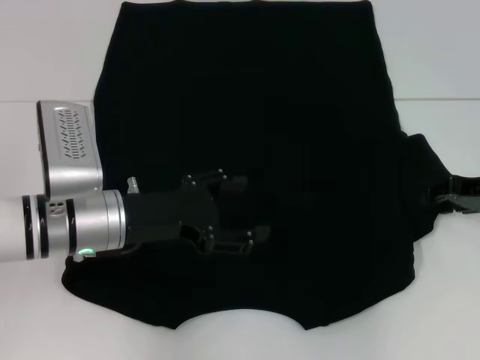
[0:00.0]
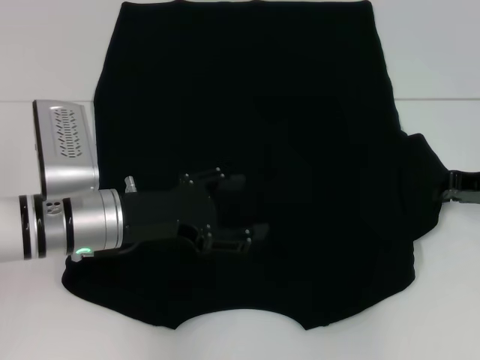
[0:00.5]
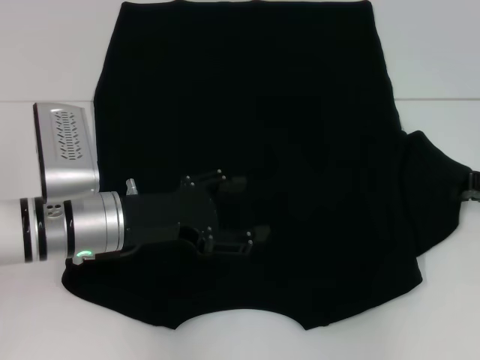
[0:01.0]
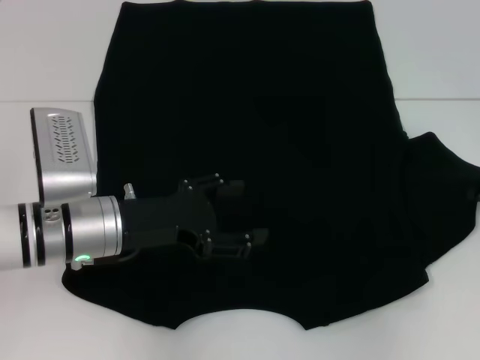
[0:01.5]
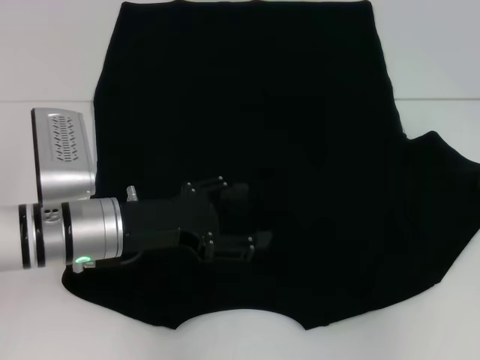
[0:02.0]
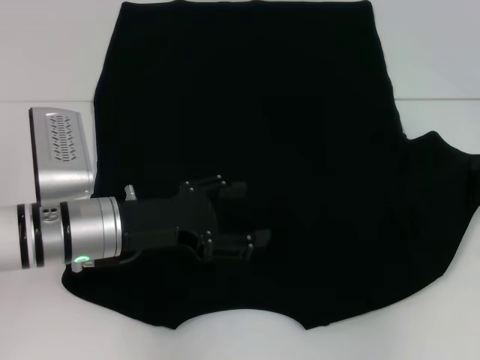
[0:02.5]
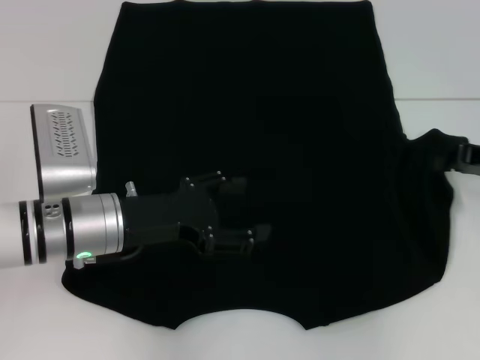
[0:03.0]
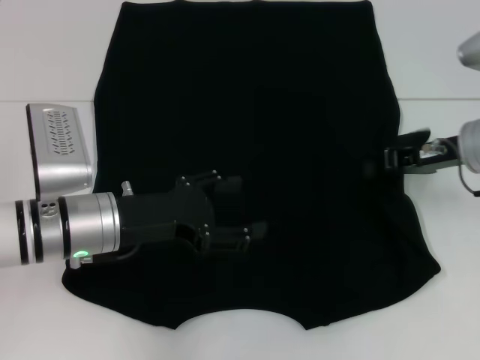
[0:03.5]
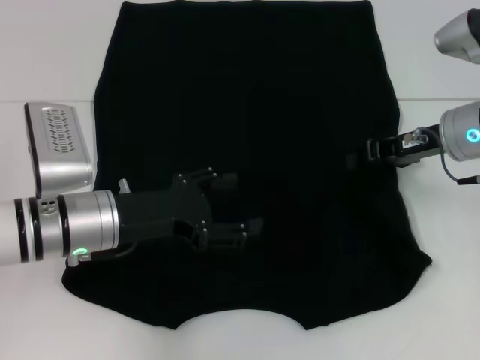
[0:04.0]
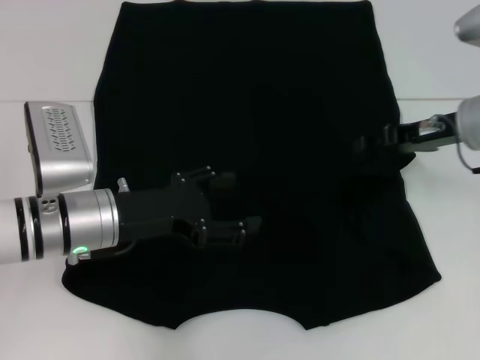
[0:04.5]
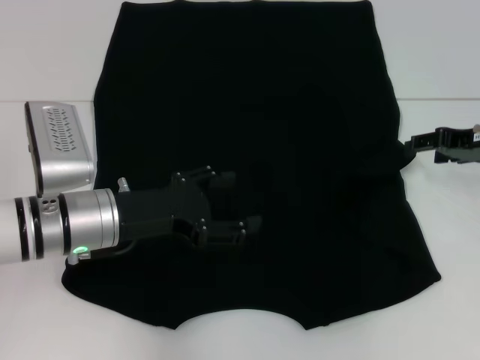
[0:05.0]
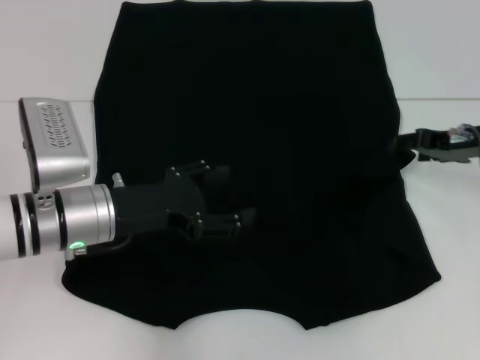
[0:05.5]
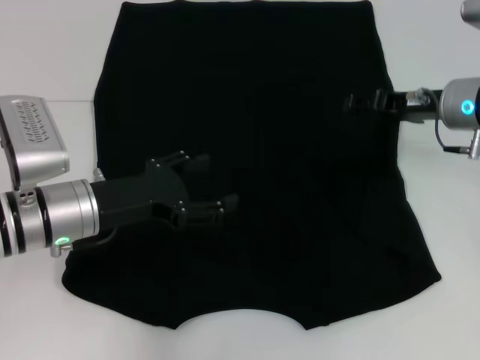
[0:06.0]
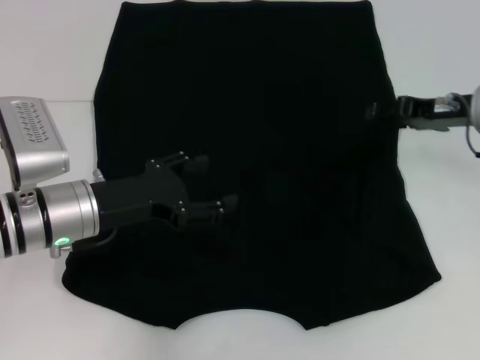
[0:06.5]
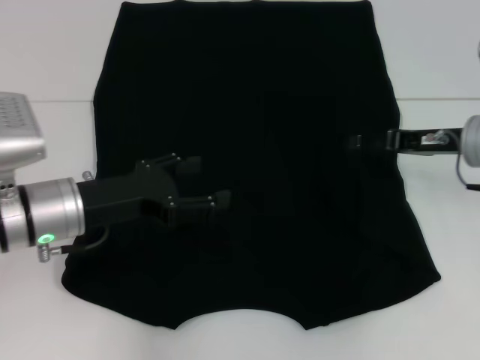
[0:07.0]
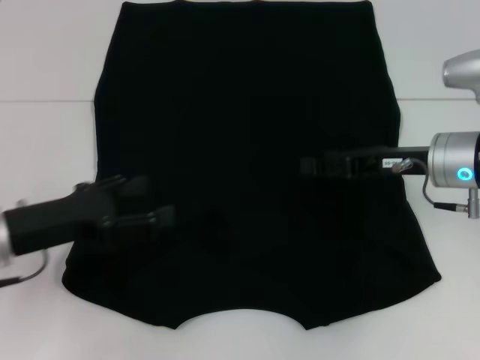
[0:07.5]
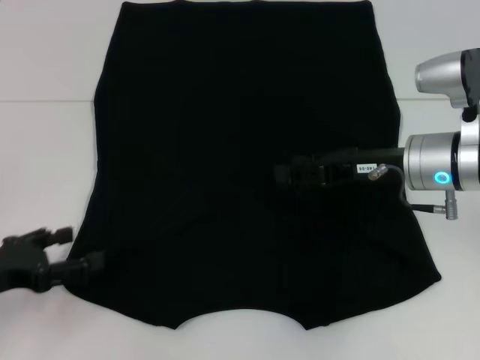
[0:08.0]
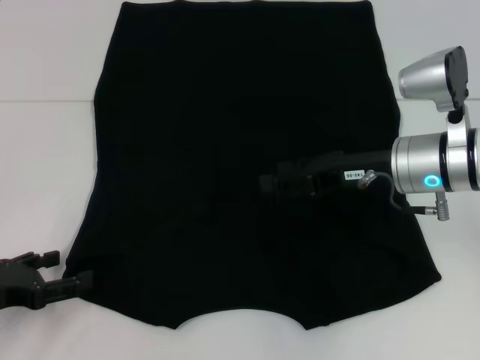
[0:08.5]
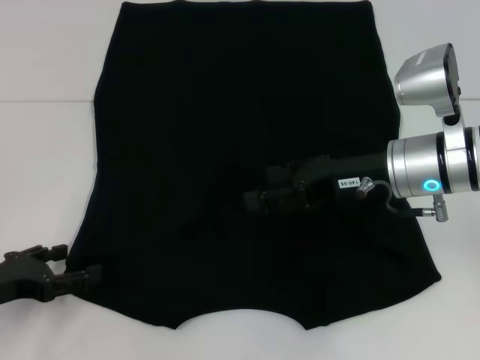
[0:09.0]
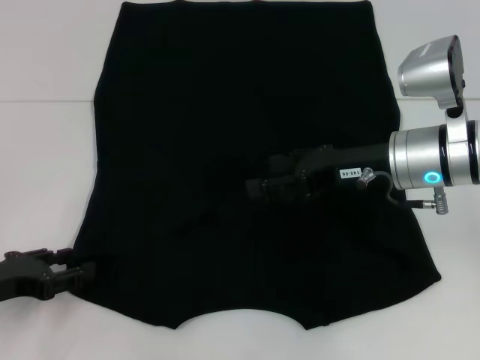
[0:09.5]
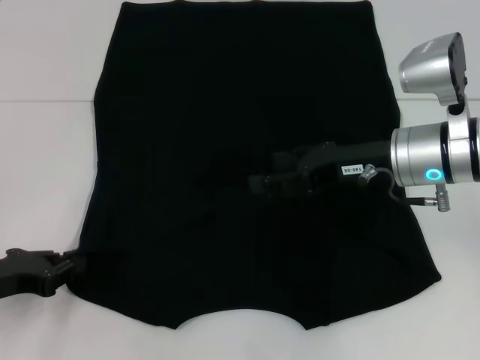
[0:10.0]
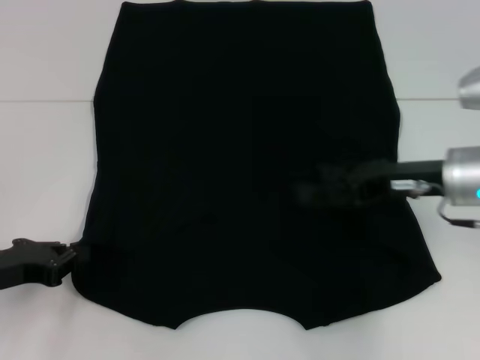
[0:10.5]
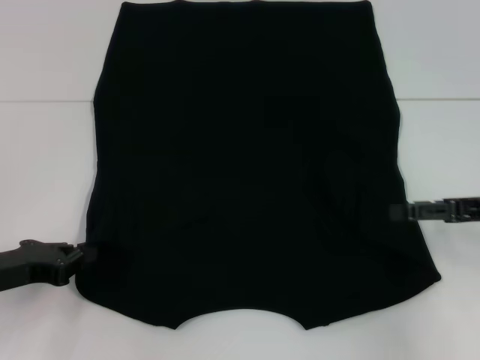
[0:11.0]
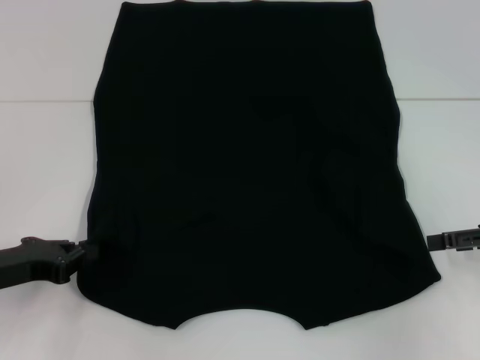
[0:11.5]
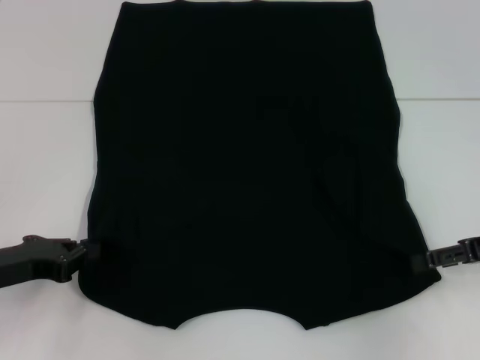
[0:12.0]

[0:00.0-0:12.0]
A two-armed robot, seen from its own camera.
Step, 0:00.0 to 0:04.0: Fold the bottom right sleeve with your right hand.
Step, 0:04.5 to 0:10.0: Grab the bottom left corner with your left hand.
0:00.0 to 0:02.0: The right gripper moves about 5 cm, and closes up.
0:02.0 to 0:04.0: The right gripper goes roughly 15 cm to the left.
0:04.0 to 0:06.0: The right gripper opens its fingers.
0:06.0 to 0:08.0: The left gripper moves to the left and backward, approximately 15 cm. The right gripper goes some 5 cm backward.
0:08.0 to 0:10.0: The left gripper closes its fingers.
0:10.0 to 0:12.0: The right gripper shifts about 15 cm to the right.

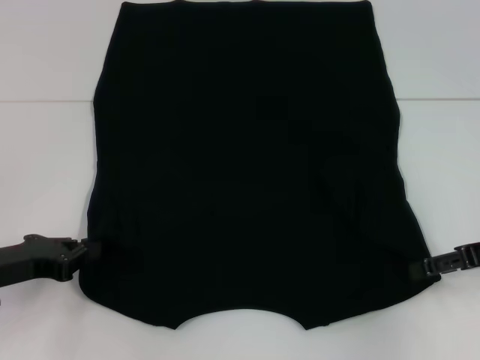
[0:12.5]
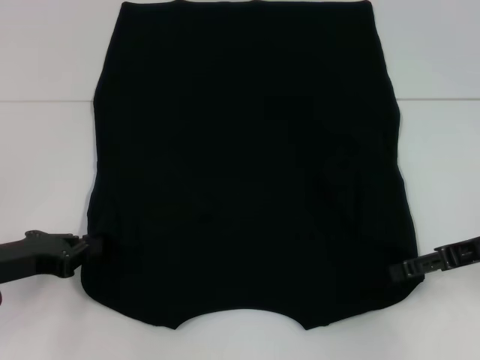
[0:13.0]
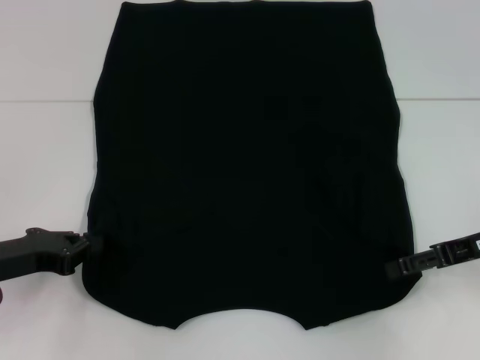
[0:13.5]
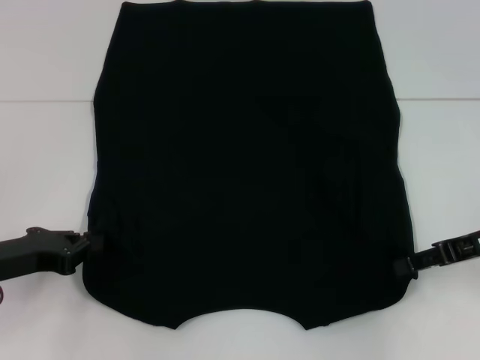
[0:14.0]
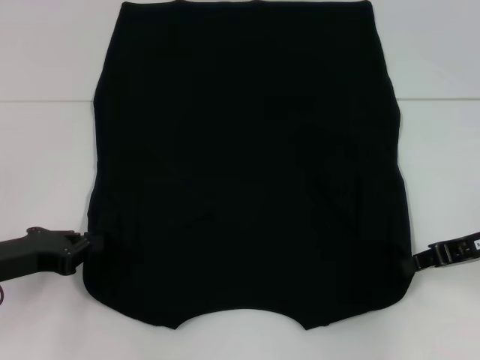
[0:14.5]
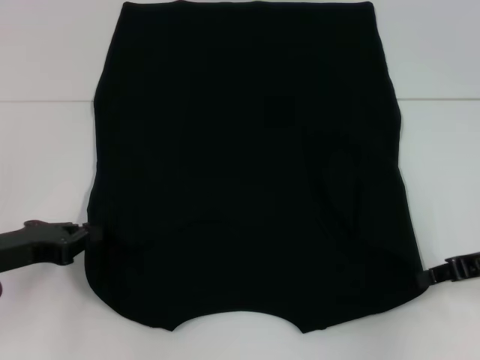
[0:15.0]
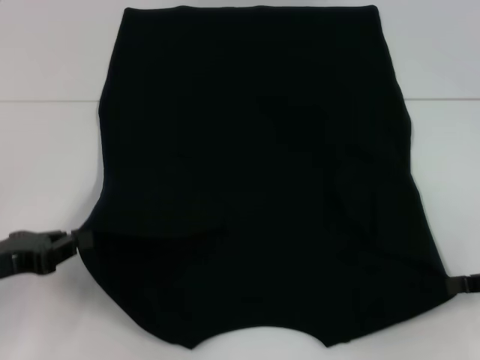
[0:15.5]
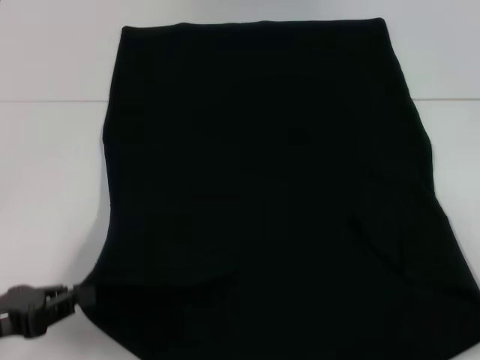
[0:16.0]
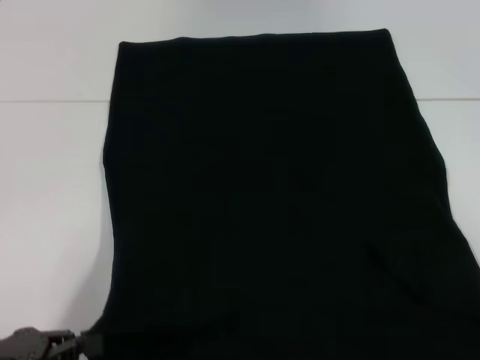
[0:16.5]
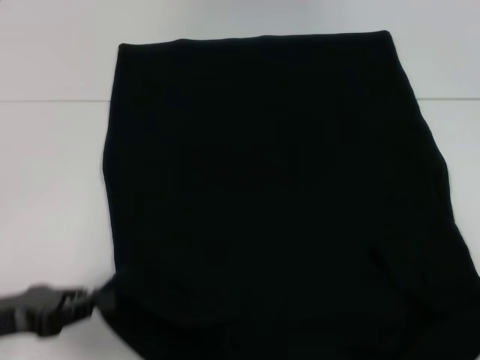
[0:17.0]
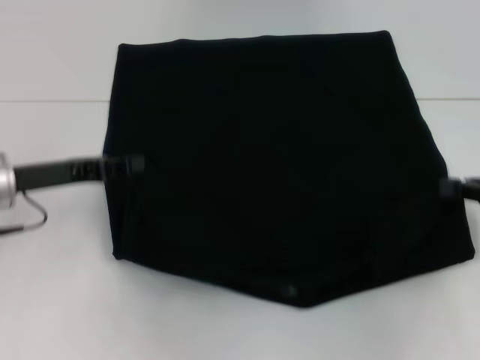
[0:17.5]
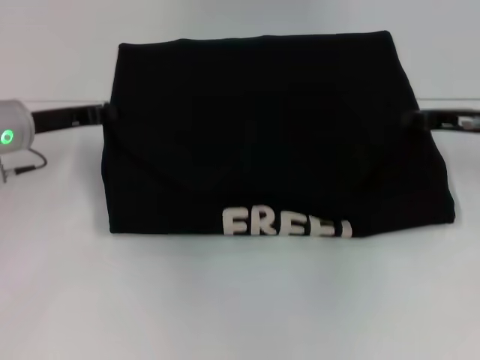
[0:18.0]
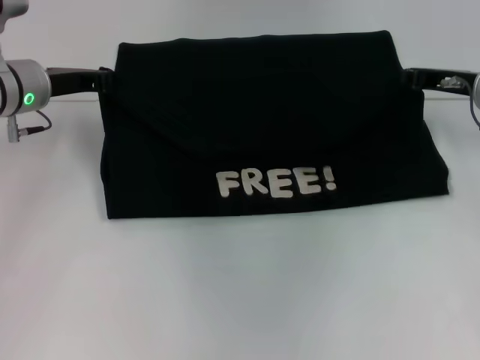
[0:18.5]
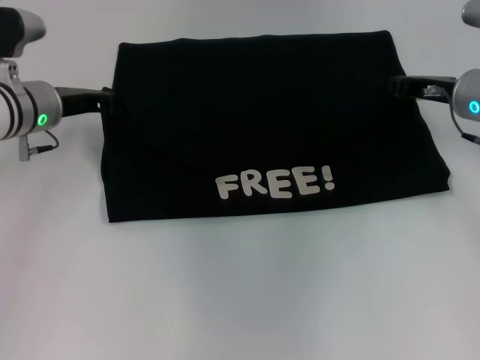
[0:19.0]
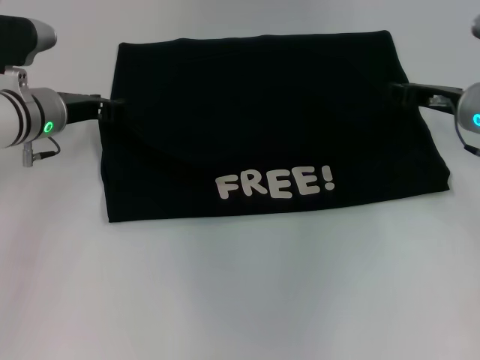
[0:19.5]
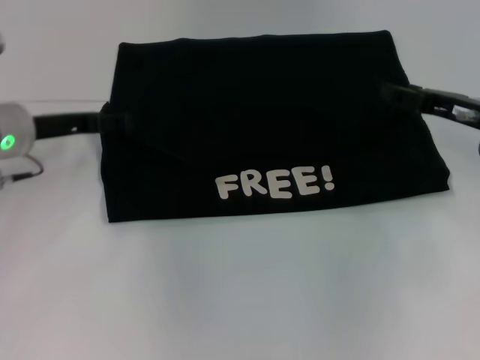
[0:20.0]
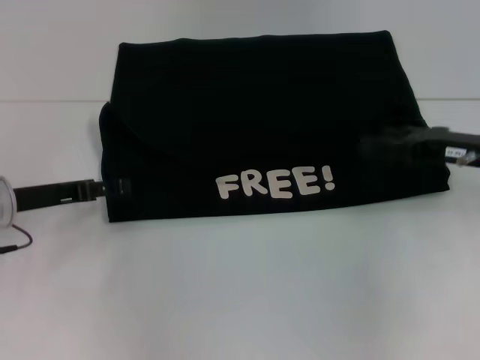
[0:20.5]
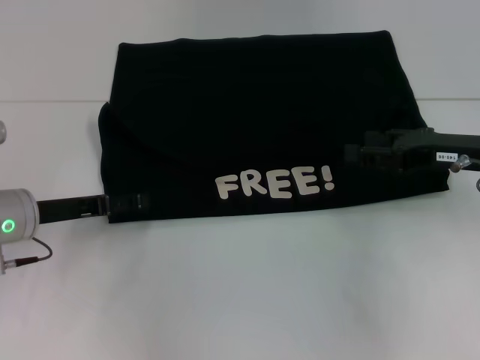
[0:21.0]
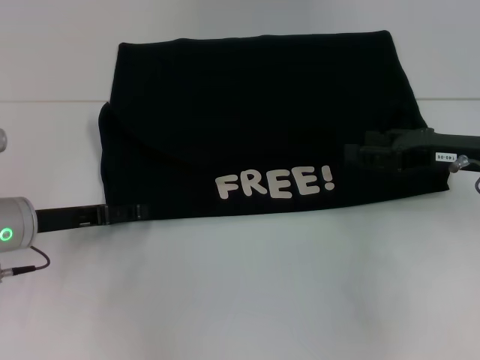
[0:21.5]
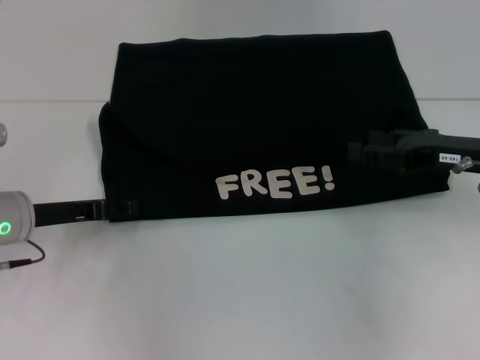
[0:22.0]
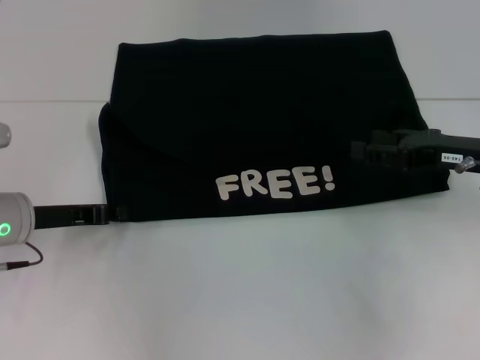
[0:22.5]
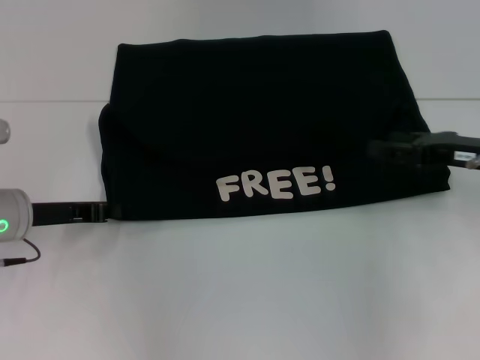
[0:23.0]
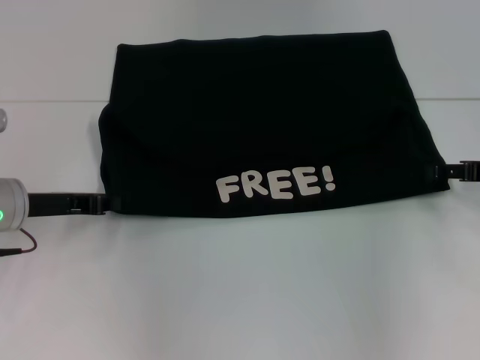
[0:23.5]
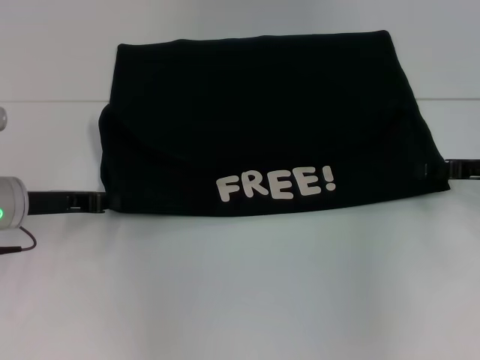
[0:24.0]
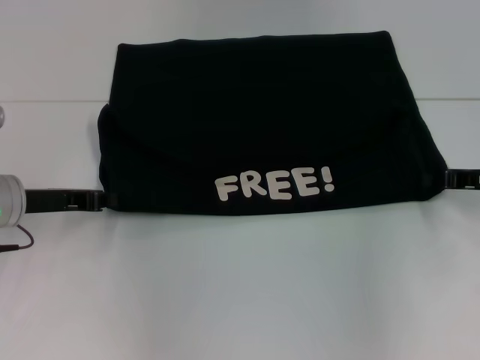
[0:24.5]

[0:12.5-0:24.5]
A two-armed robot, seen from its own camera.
Step, 0:12.5 to 0:14.5: Grab the bottom right corner with your right hand.
Step, 0:15.0 to 0:19.5: Fold the clothes with your left hand.
Step, 0:15.0 to 0:19.5: Fold the clothes with your right hand.
0:12.5 to 0:14.5: The right gripper closes up.
0:14.5 to 0:16.5: The right gripper goes roughly 20 cm backward and to the right. The left gripper goes roughly 10 cm backward.
0:16.5 to 0:18.5: The right gripper heads forward and to the left, covering roughly 30 cm. Meanwhile the left gripper goes some 25 cm forward.
0:18.5 to 0:20.5: The left gripper travels backward and downward by roughly 10 cm, and opens its fingers; the right gripper moves backward, some 5 cm, and opens up.
0:20.5 to 0:22.5: The left gripper closes its fingers.
0:22.5 to 0:24.5: The left gripper closes. The right gripper closes up.

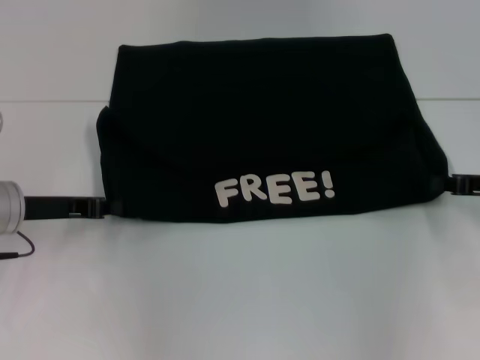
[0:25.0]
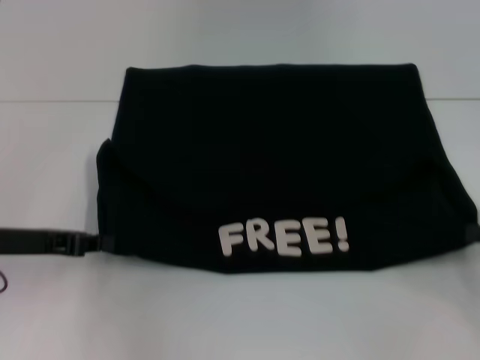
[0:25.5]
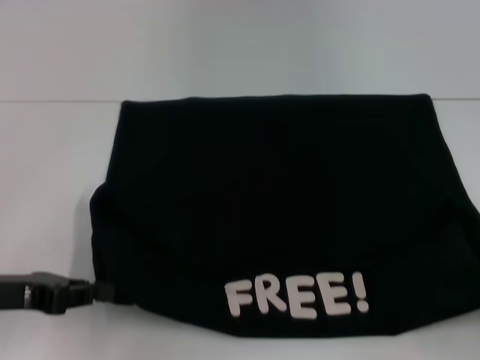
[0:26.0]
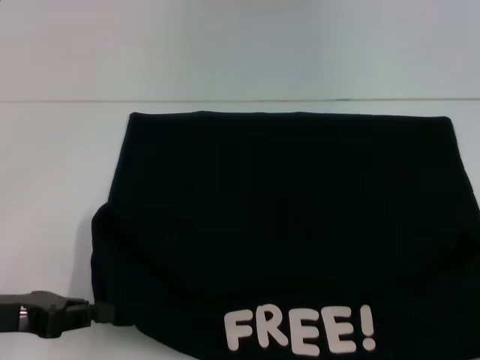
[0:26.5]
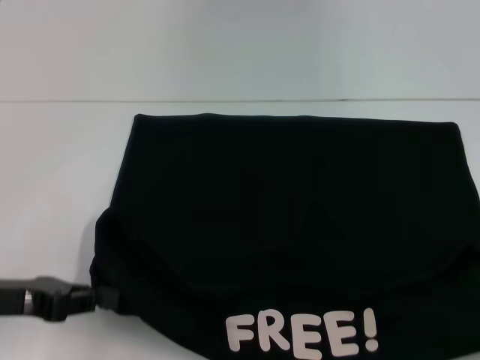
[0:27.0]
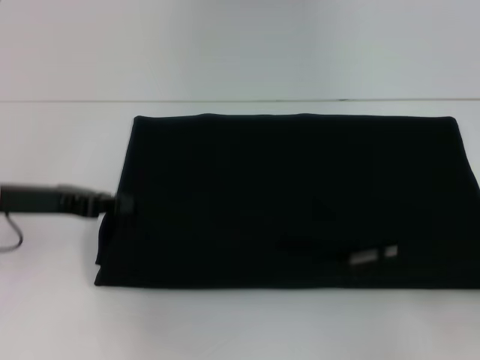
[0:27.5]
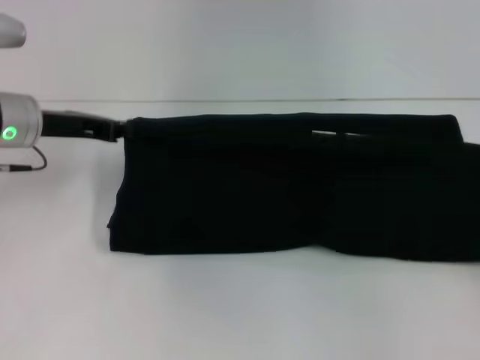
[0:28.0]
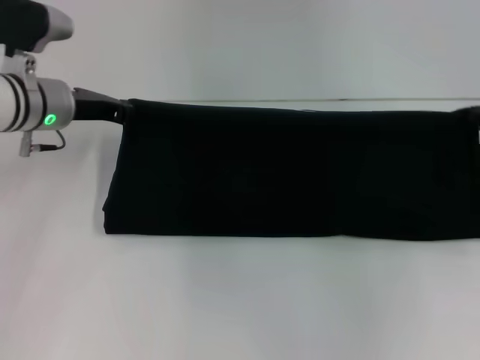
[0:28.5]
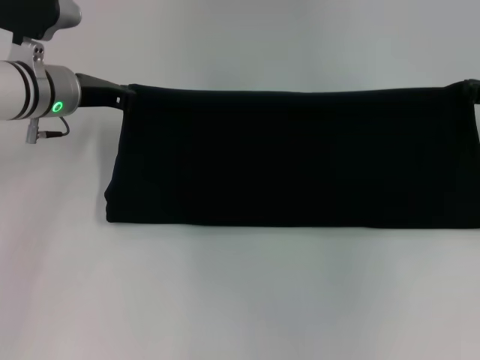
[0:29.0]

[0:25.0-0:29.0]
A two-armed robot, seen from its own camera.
0:25.0 to 0:27.0: The left gripper shifts some 10 cm backward. The right gripper is displaced backward by roughly 20 cm.
0:27.0 to 0:29.0: The left gripper moves forward and to the right, about 20 cm. Meanwhile the right gripper is displaced forward by some 30 cm.
